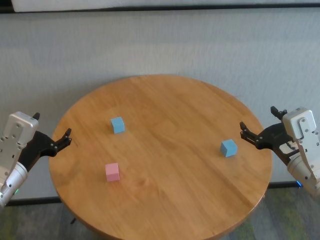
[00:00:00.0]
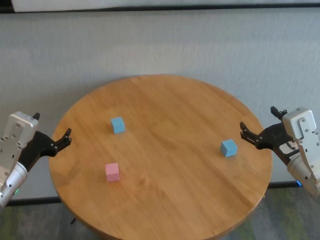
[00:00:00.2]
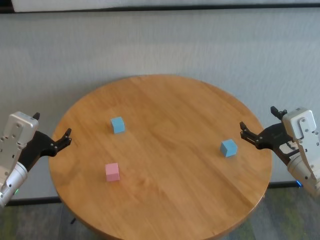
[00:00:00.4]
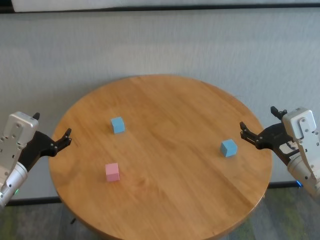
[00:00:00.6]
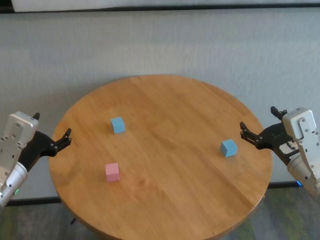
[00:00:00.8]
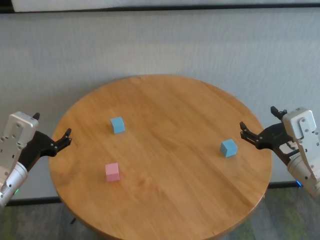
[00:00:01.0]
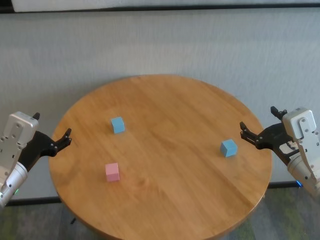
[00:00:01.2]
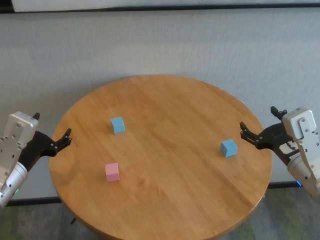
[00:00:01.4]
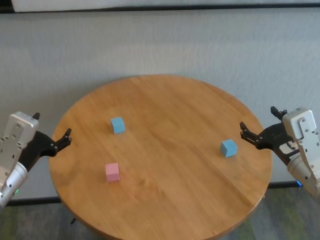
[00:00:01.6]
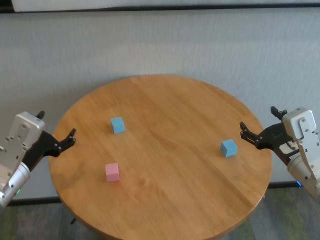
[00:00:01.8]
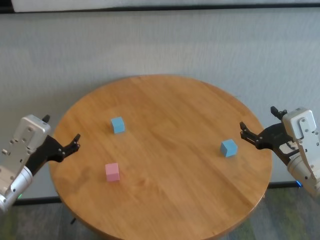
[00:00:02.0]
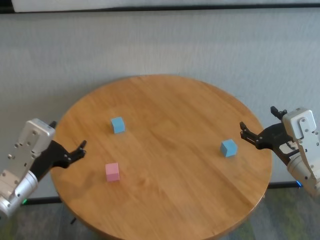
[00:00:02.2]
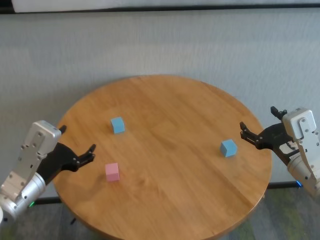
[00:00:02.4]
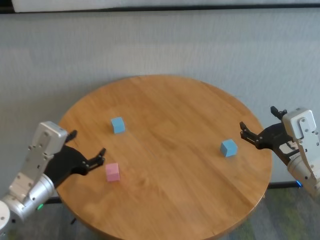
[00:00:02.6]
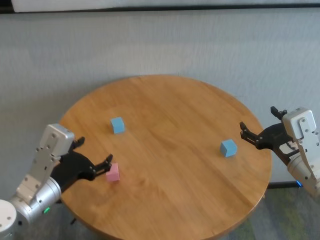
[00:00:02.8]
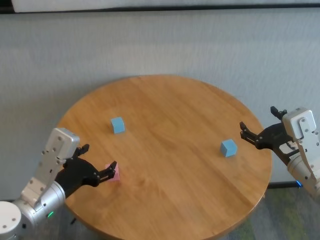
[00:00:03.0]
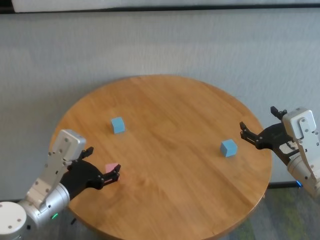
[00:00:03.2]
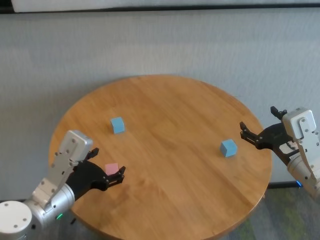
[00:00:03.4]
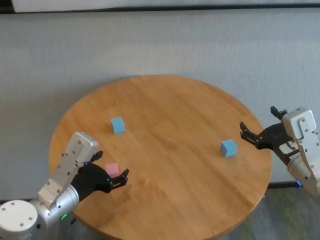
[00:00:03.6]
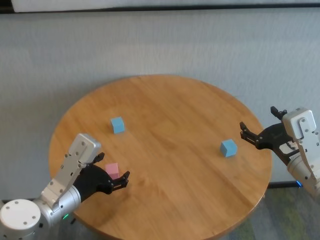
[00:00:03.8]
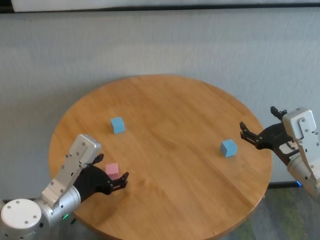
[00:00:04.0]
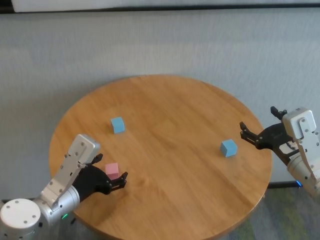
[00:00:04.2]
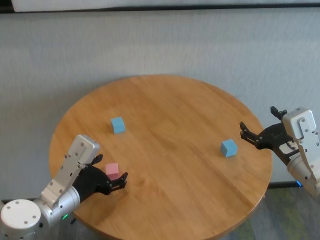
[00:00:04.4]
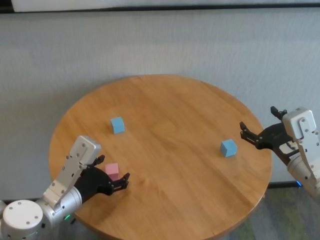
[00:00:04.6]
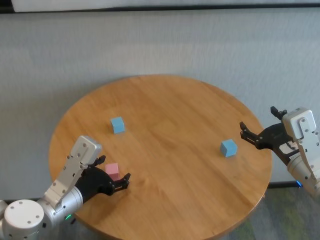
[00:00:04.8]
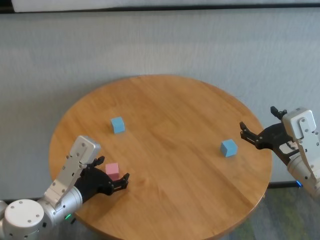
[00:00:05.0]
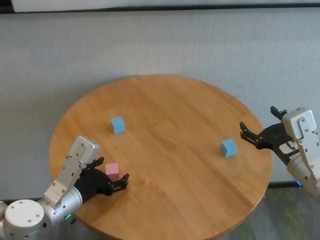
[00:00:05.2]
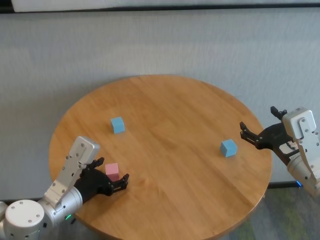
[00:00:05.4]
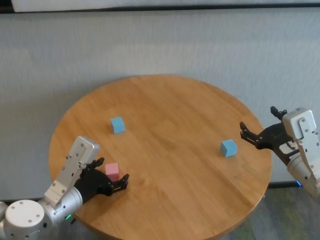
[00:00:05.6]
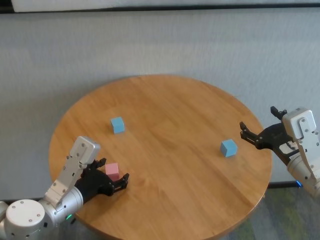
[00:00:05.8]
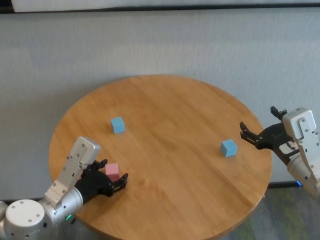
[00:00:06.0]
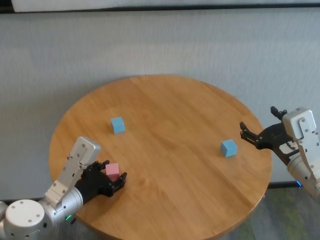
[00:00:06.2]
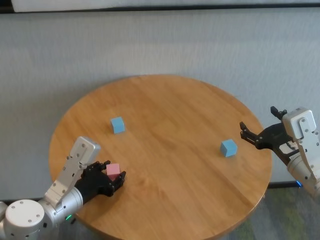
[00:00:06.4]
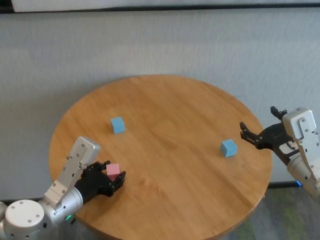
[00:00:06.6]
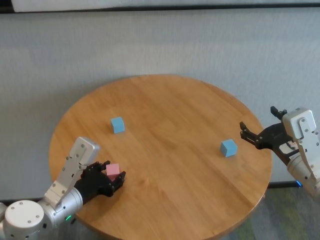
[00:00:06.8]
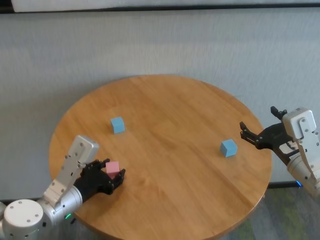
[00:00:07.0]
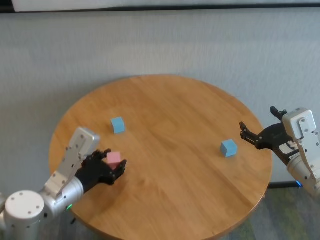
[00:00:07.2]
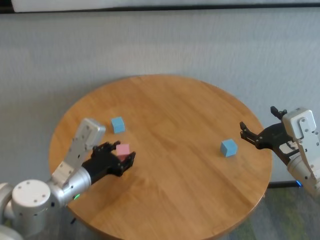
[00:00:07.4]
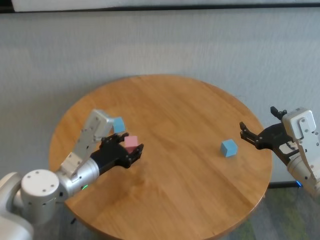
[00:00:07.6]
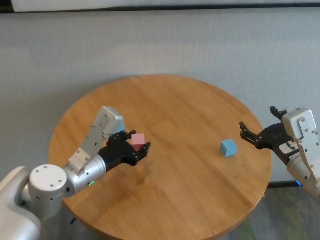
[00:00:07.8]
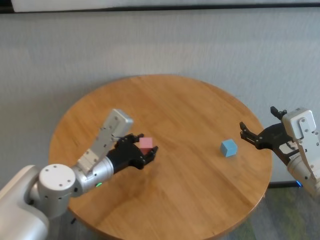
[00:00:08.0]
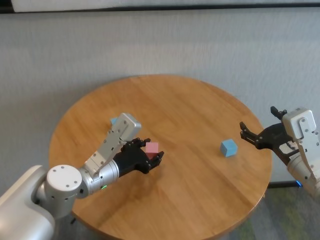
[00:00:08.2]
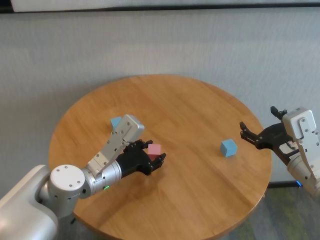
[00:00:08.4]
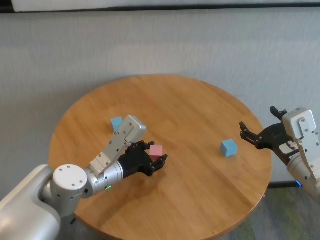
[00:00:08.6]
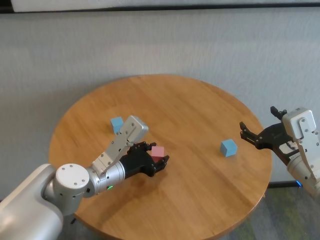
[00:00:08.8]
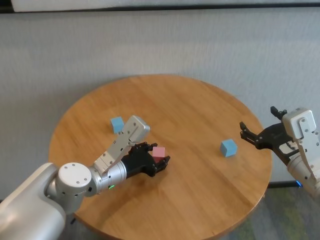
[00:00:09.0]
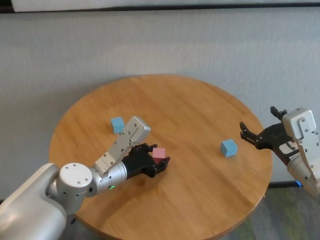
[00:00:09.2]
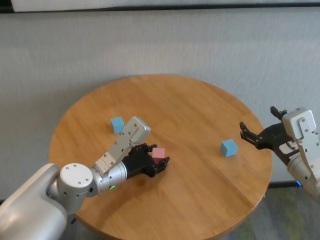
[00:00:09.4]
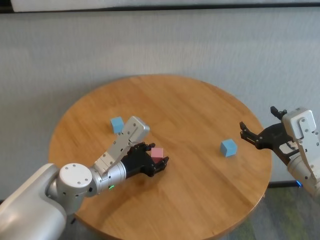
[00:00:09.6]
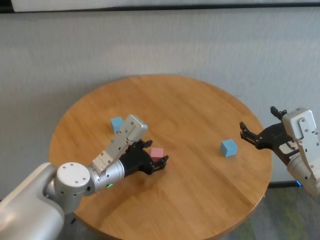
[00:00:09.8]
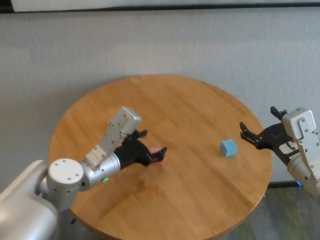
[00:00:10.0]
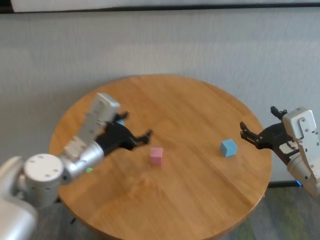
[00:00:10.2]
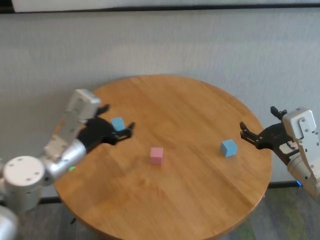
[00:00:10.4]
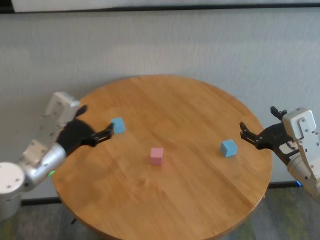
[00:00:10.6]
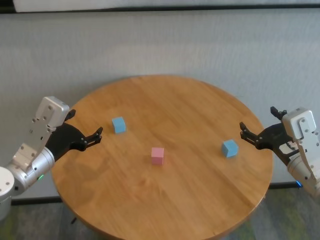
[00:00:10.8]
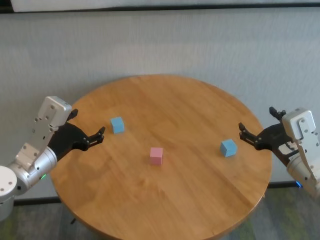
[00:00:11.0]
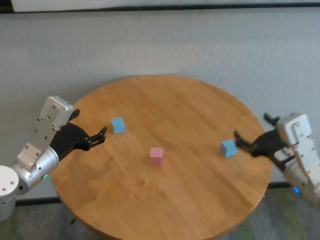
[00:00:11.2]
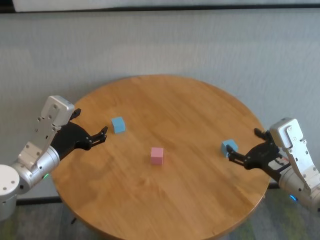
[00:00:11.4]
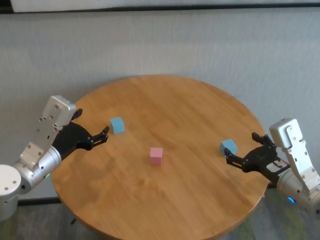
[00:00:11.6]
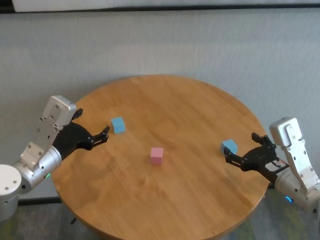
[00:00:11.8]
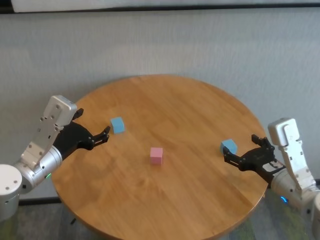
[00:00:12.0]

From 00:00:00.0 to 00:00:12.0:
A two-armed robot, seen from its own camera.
Task of the whole recording: stack building blocks on the table.
Step, from 00:00:00.0 to 00:00:06.2: Grasp the pink building block with left gripper.
Step, from 00:00:06.4 to 00:00:09.8: Place the pink building block in the center of table with left gripper.

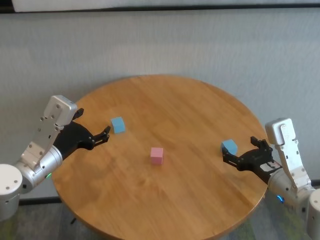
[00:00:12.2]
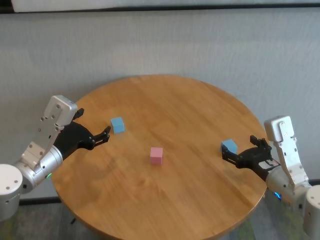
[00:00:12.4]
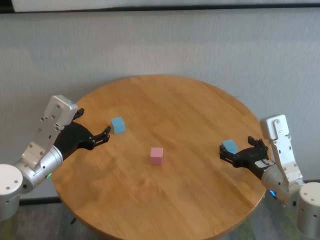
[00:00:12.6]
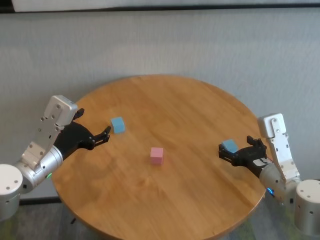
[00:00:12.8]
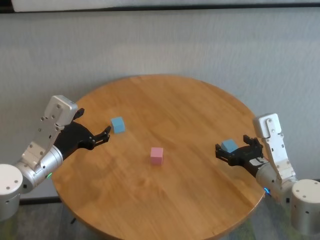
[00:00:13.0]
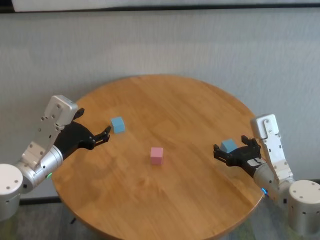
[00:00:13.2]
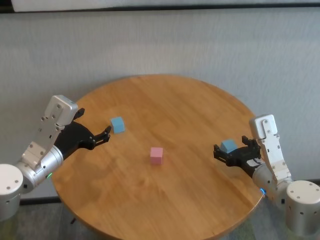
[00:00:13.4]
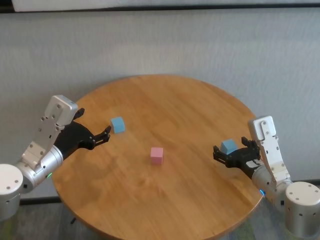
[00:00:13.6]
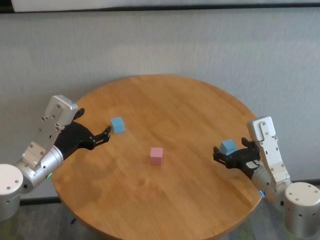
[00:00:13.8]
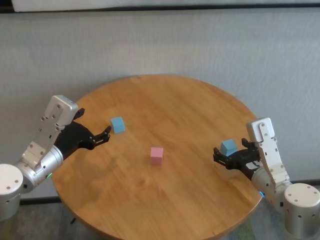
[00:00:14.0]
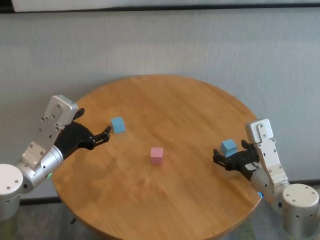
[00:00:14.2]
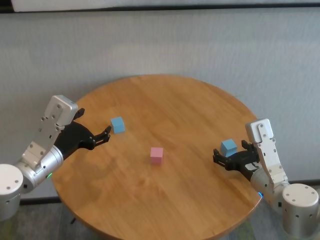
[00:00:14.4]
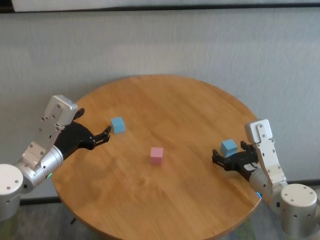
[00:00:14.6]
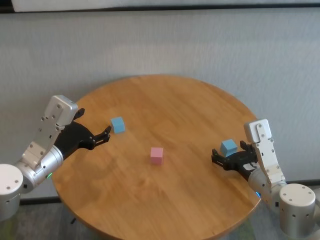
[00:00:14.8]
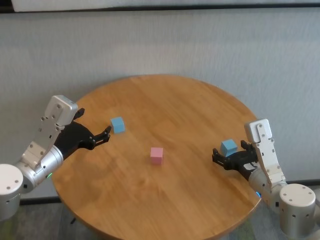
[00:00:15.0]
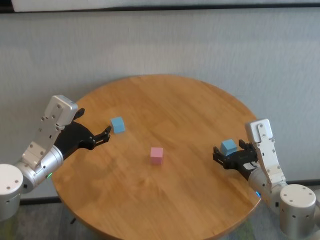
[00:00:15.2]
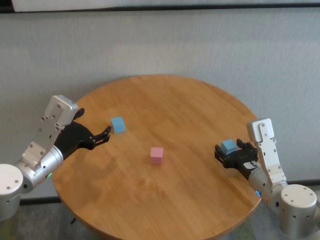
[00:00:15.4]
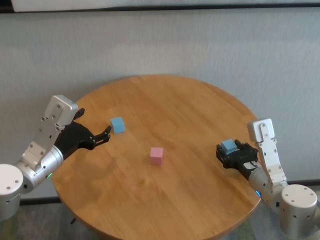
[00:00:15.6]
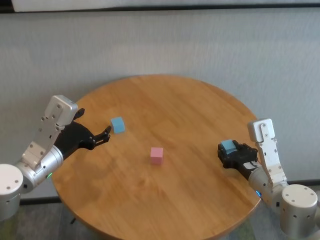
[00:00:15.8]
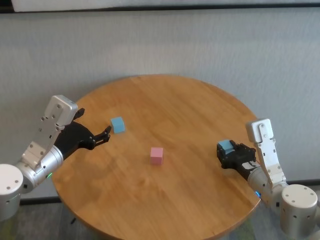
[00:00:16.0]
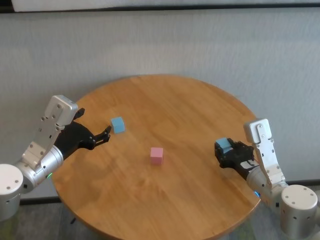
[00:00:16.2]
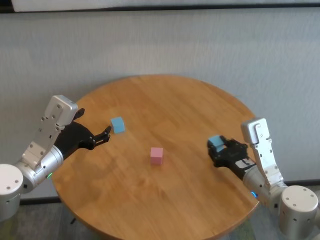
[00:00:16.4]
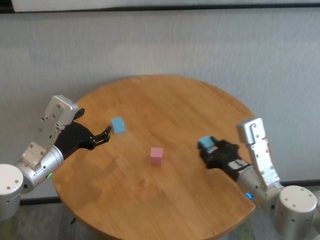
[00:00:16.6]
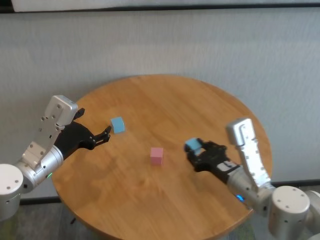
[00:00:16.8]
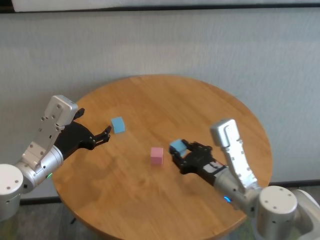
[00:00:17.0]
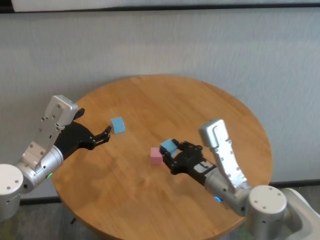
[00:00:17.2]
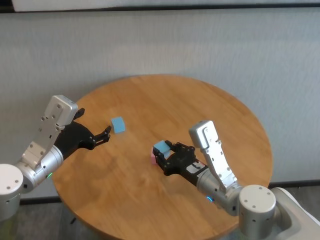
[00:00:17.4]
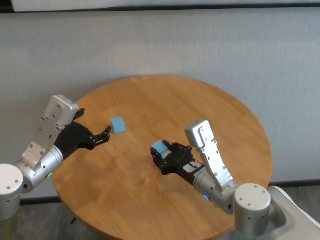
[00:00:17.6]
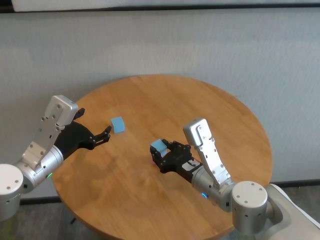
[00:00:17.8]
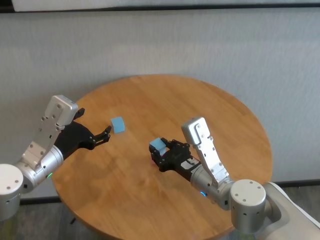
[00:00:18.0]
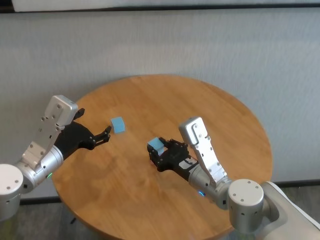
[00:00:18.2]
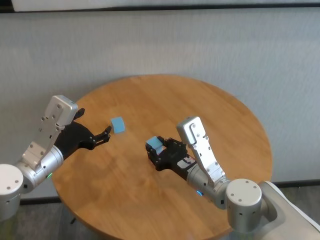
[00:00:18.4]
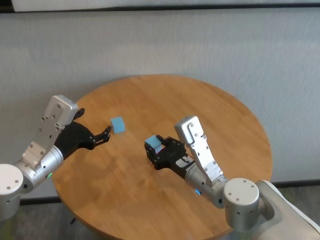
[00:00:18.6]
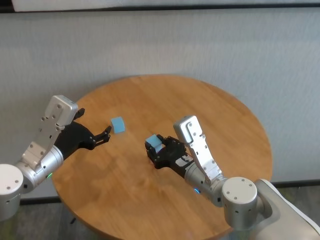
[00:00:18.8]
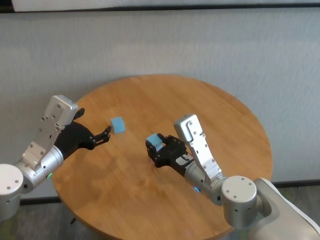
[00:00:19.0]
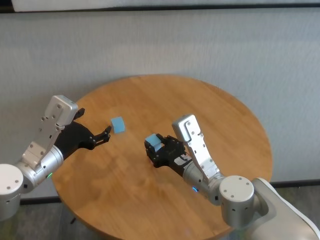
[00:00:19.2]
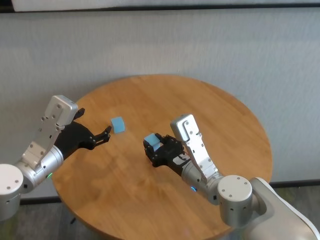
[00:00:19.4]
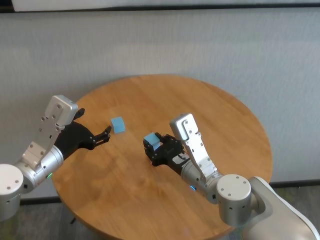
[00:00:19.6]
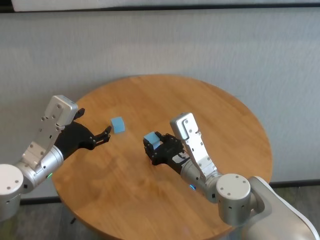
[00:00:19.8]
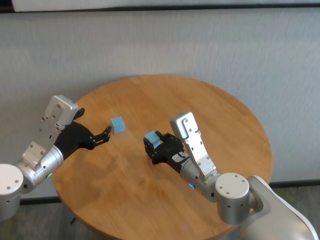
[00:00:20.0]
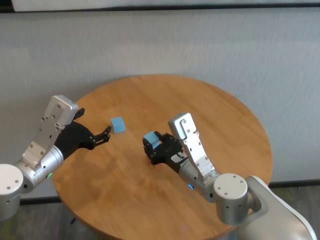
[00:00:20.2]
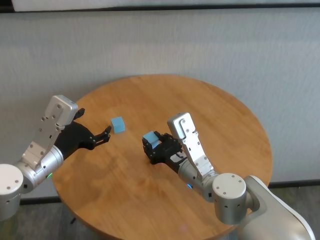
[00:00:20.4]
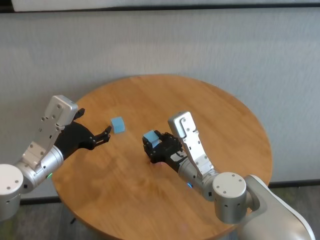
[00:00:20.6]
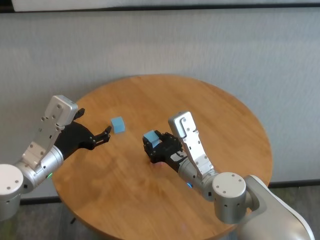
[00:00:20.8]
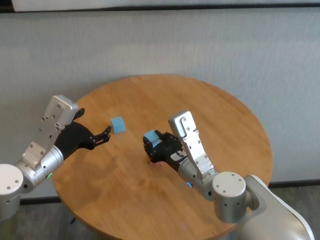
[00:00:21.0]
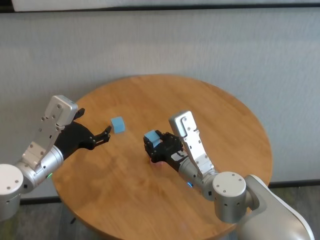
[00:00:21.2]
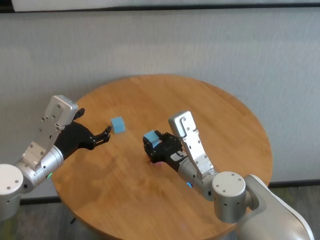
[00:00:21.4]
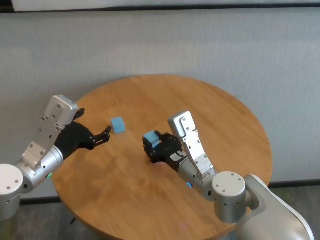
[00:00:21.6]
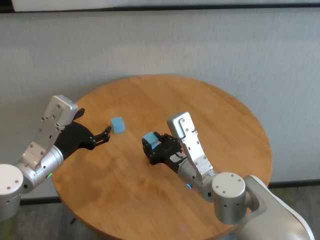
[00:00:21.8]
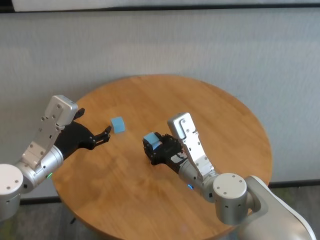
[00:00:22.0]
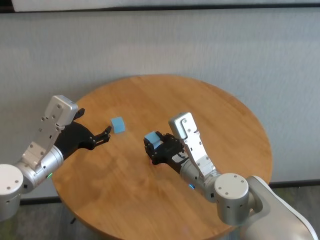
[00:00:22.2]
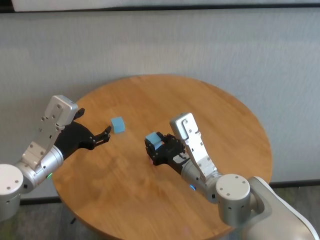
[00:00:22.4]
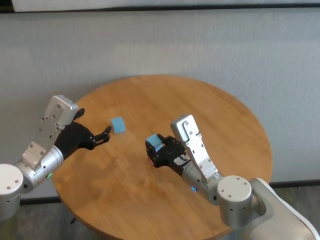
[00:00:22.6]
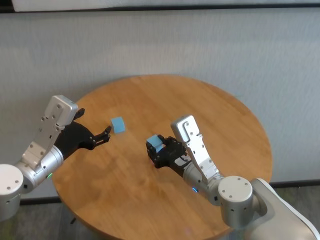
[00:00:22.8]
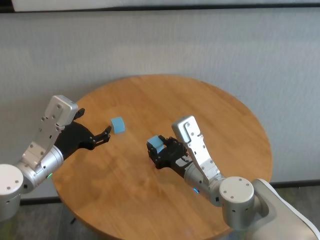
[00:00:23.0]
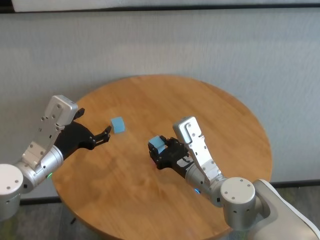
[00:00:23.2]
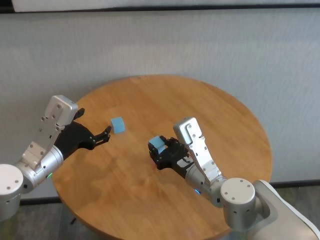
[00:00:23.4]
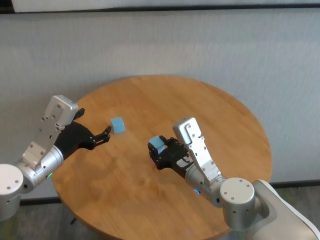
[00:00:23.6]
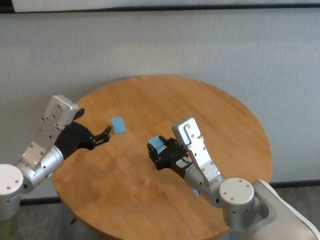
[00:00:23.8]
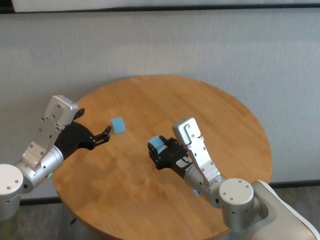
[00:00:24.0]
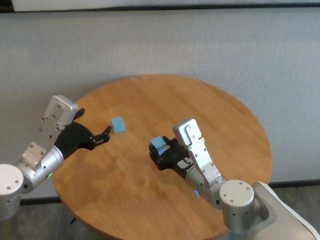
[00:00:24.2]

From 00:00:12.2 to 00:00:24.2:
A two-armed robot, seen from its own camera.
Task of the whole recording: stack building blocks on the table.
Step, from 00:00:12.2 to 00:00:15.8: Grasp the blue building block with right gripper.
